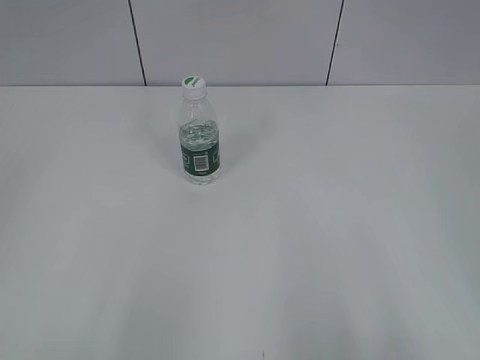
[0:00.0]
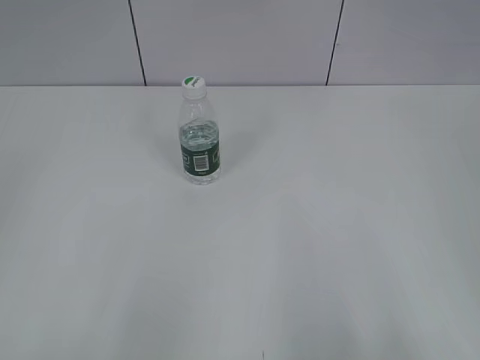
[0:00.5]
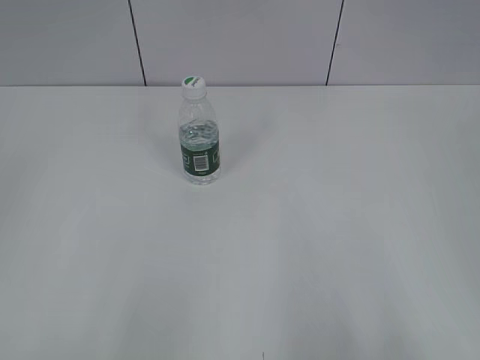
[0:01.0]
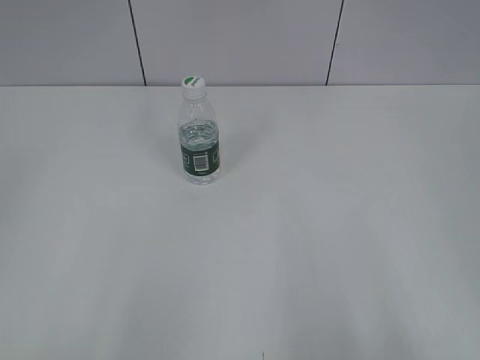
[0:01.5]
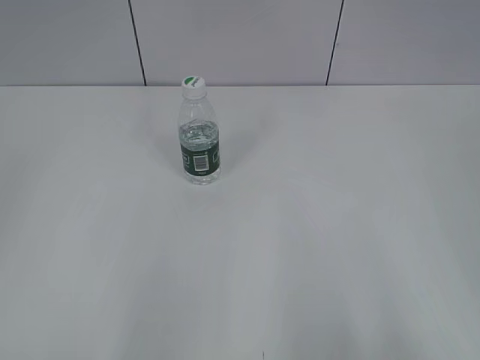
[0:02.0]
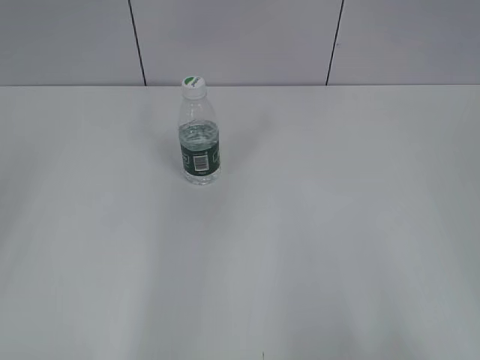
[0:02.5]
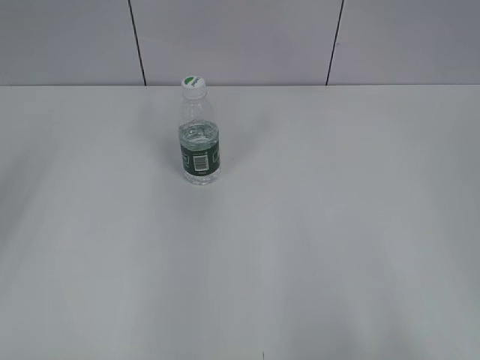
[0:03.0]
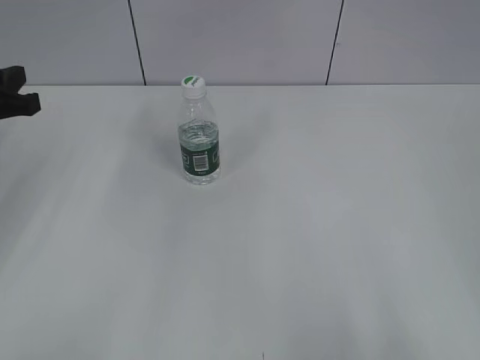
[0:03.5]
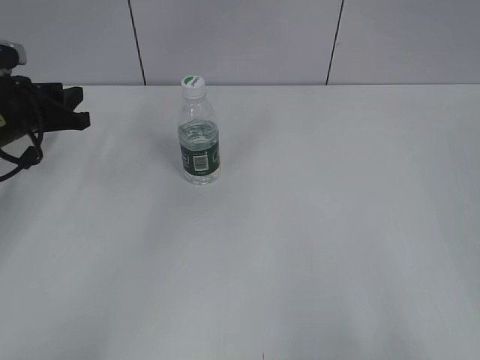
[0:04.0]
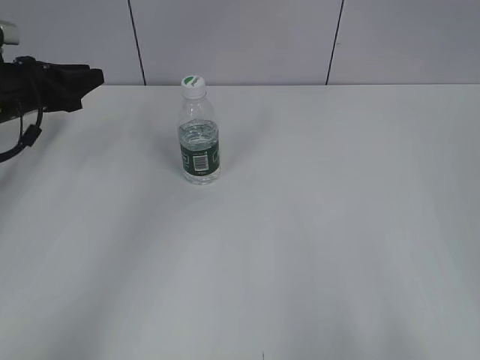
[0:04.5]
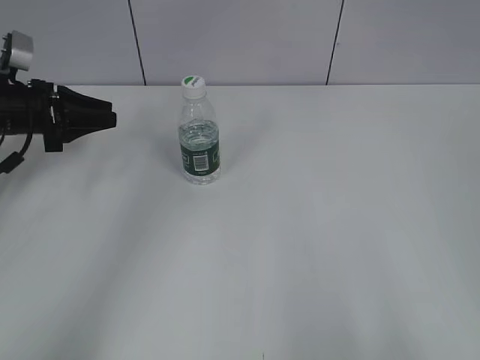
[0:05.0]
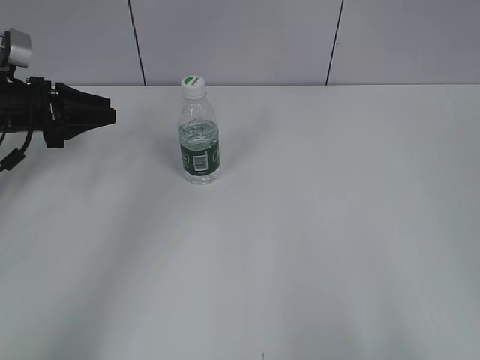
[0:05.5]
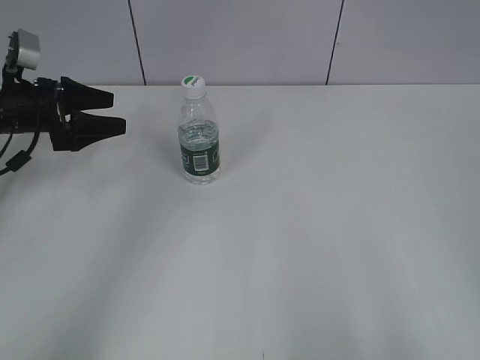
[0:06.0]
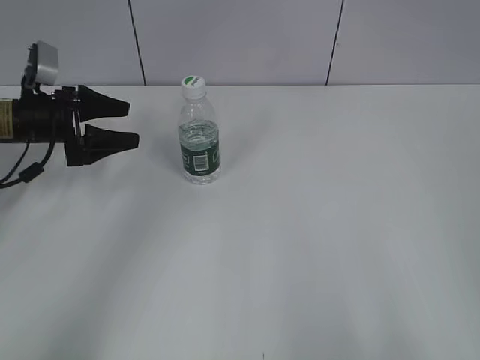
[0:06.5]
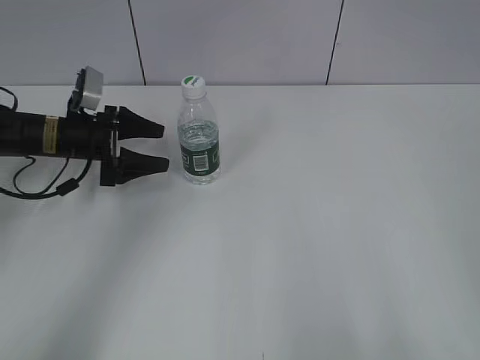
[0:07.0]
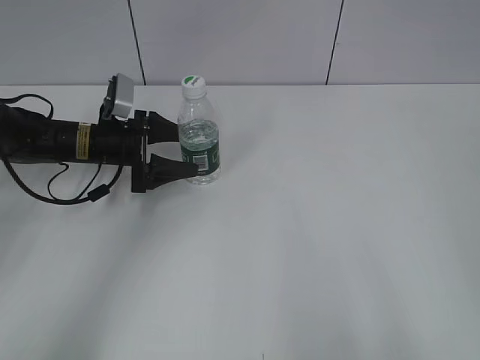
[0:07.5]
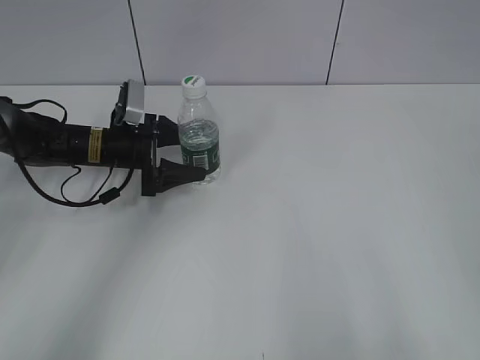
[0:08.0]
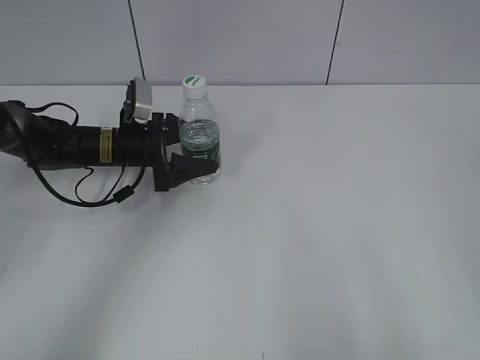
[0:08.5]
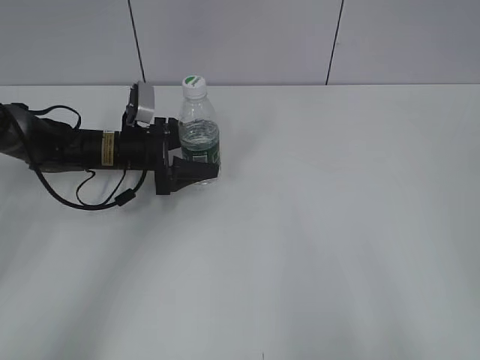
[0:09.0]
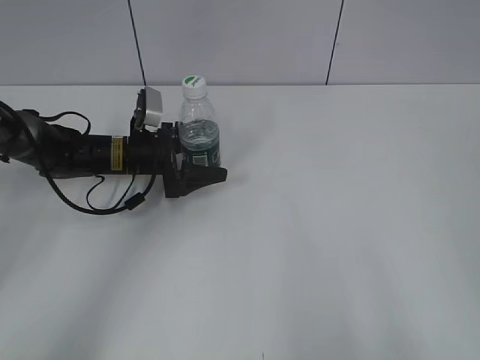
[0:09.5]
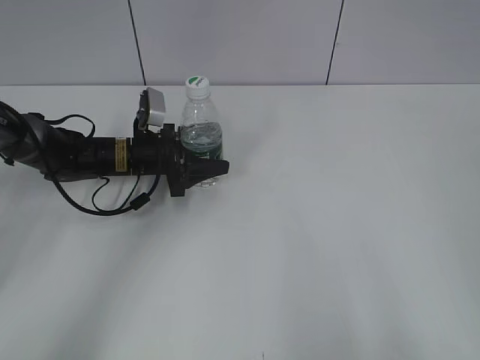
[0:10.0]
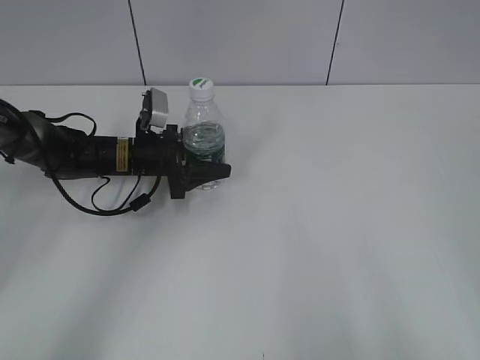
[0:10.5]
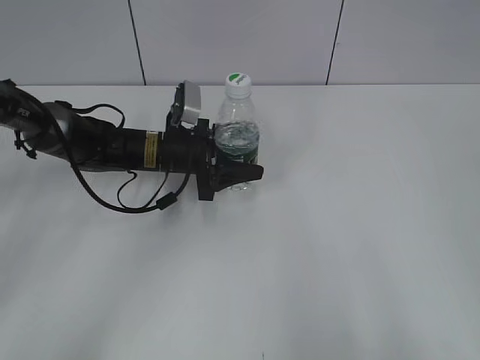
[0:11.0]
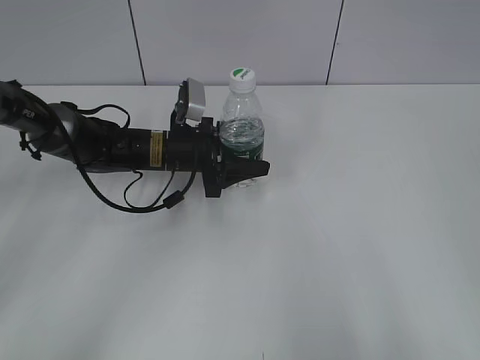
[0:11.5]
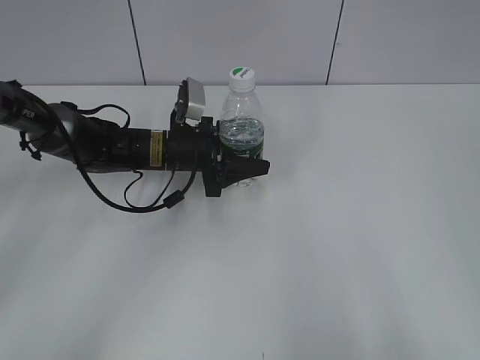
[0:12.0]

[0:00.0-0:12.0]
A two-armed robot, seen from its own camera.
Step, 0:00.0 to 0:10.0: Grasp the bottle and move it to the center of the table with the left gripper.
0:02.0 to 0:04.0: The left gripper is displaced forward and downward by about 40 cm.
0:04.0 to 0:06.0: The left gripper opens its fingers.
0:06.0 to 0:08.0: The left gripper shifts approximately 15 cm to the right and downward.
0:08.0 to 0:10.0: The left gripper closes up.
0:10.0 to 0:12.0: The left gripper heads to the right, covering approximately 5 cm.

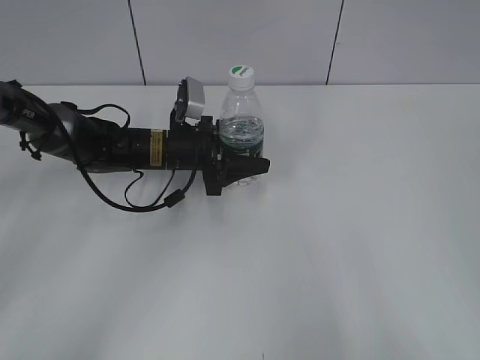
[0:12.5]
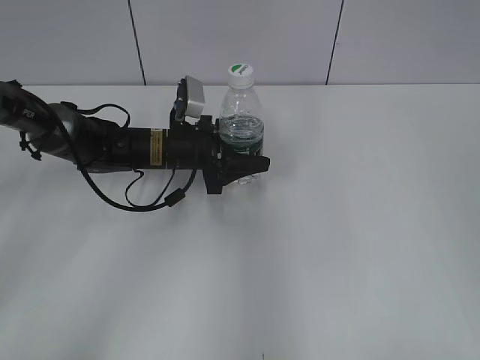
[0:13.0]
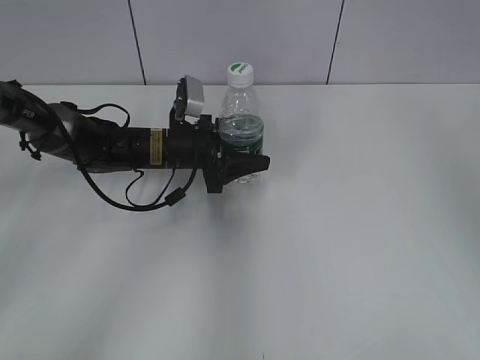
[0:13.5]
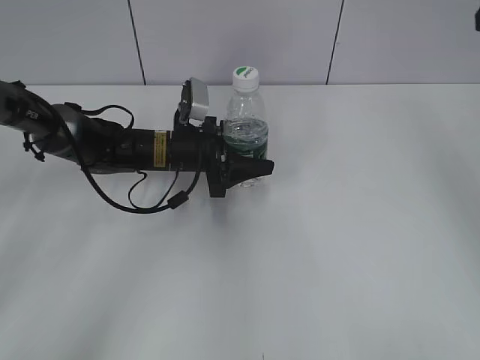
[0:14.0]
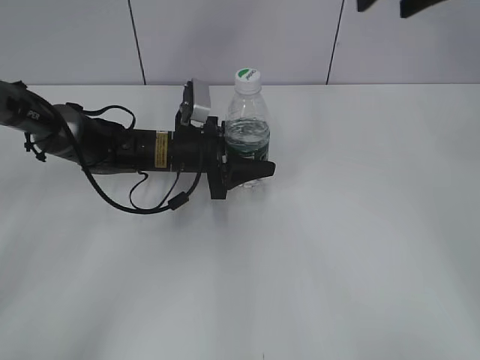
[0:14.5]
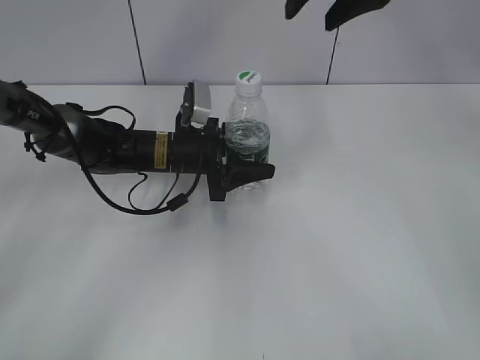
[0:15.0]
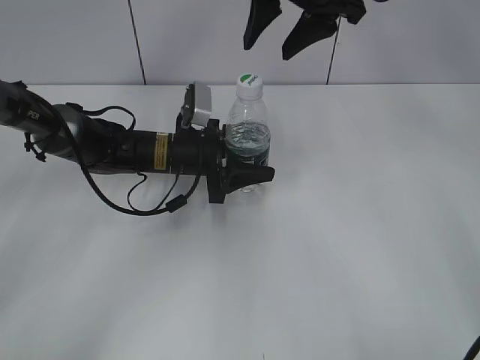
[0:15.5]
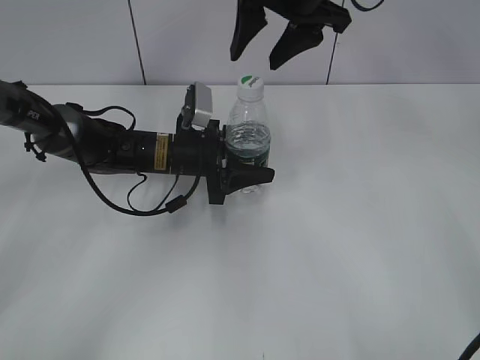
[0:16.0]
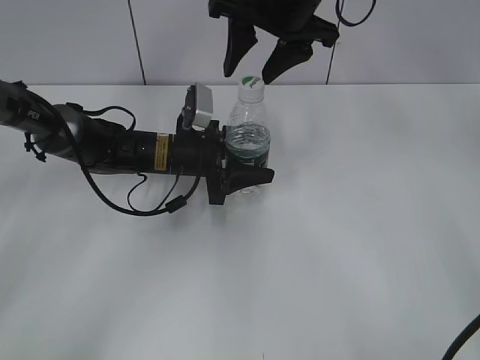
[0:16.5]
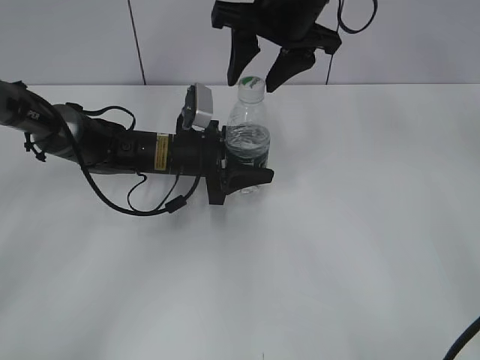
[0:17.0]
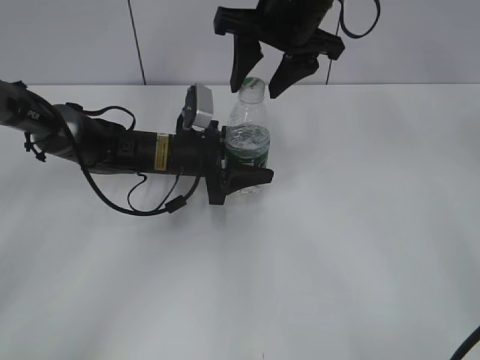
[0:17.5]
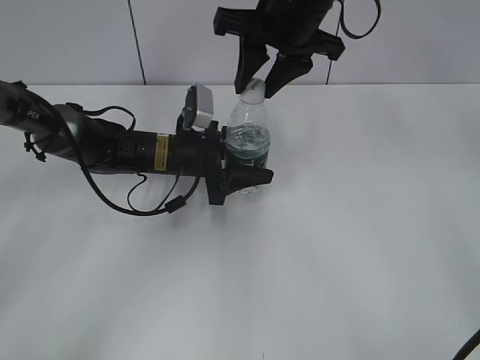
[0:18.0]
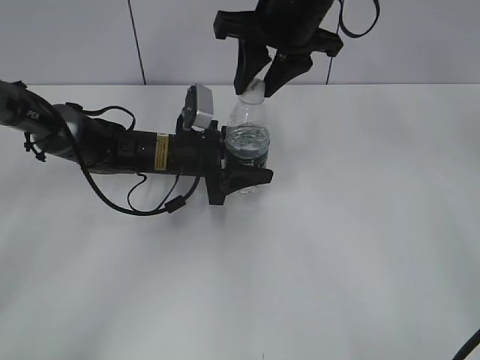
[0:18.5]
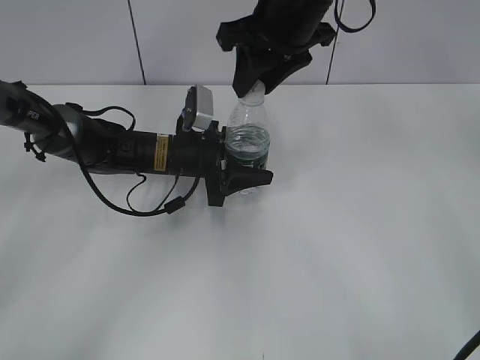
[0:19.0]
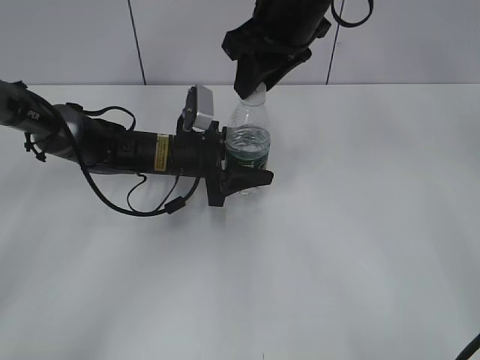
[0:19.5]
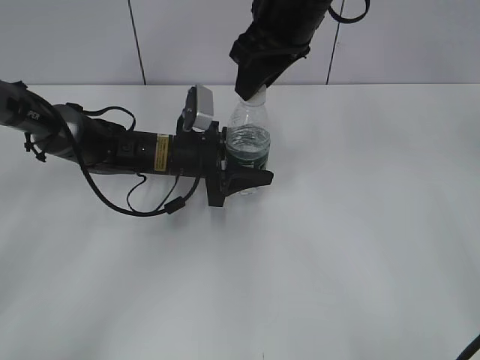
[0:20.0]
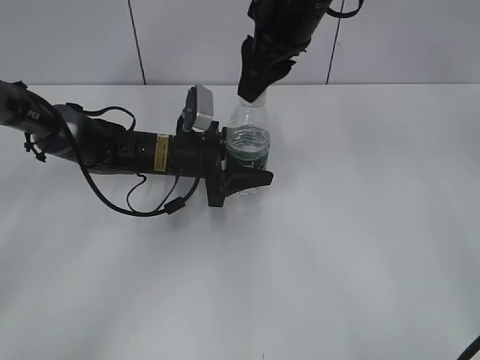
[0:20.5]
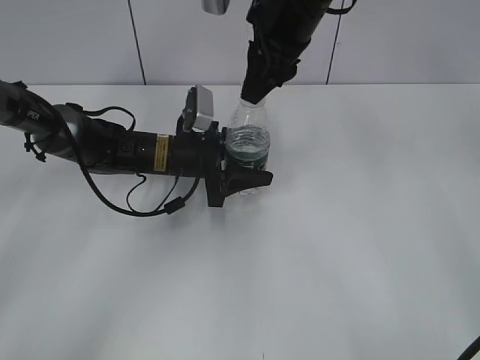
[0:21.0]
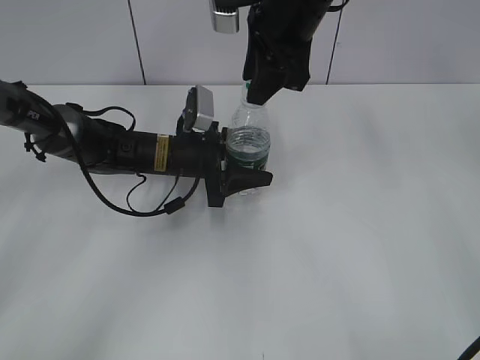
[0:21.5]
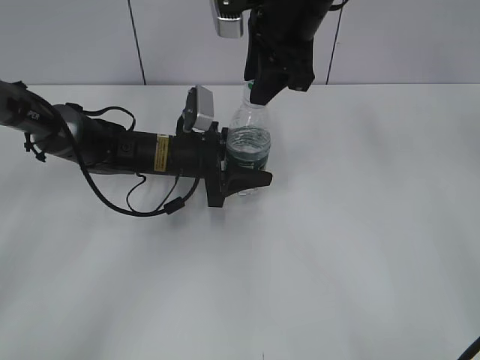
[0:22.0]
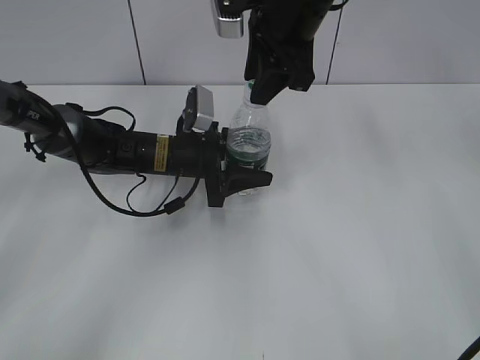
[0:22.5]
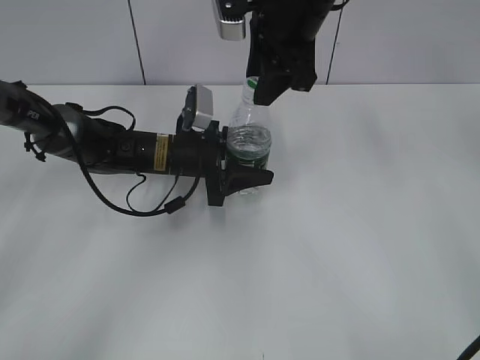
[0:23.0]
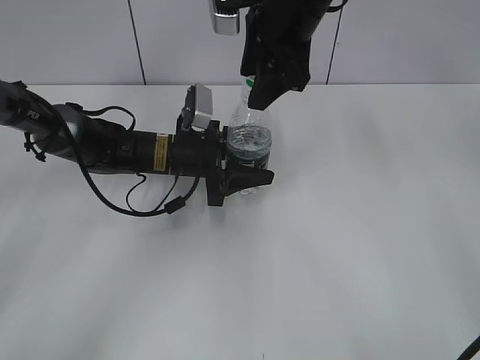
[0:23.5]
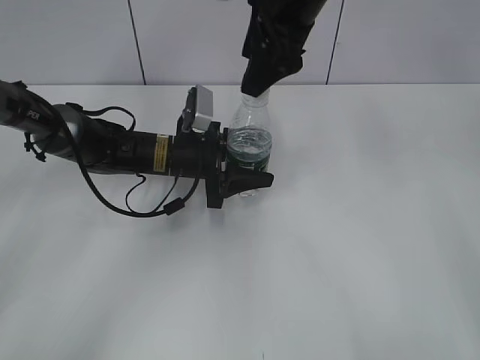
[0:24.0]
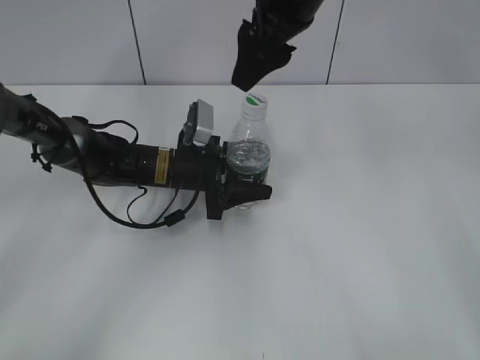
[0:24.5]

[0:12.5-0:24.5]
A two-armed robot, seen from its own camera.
0:12.5 to 0:14.5: The right gripper shifts approximately 35 cm forward.
0:14.5 to 0:16.5: The right gripper travels to the left and downward by approximately 15 cm.
0:16.5 to 0:18.5: The right gripper closes its fingers.
0:22.5 to 0:24.5: The right gripper opens its fingers.

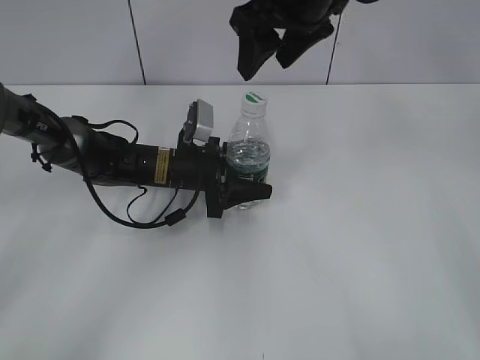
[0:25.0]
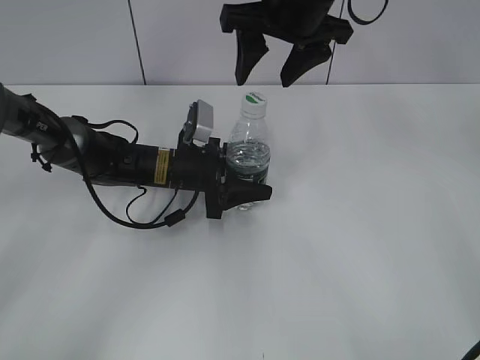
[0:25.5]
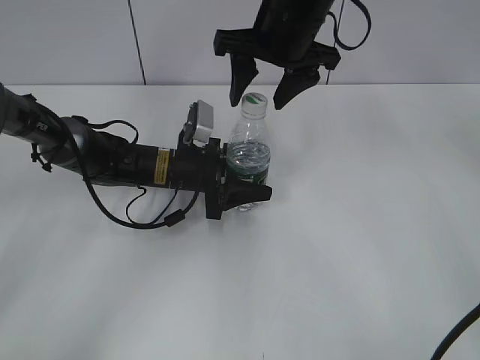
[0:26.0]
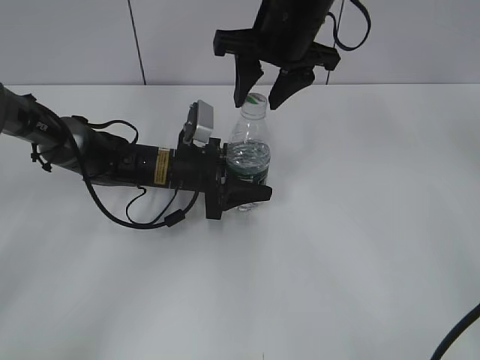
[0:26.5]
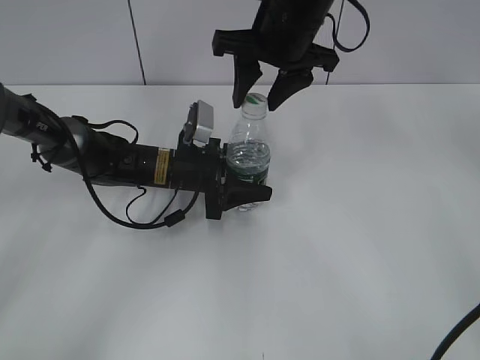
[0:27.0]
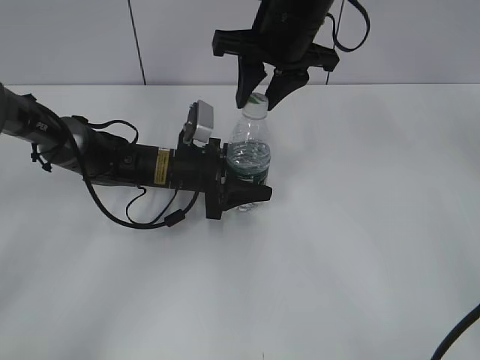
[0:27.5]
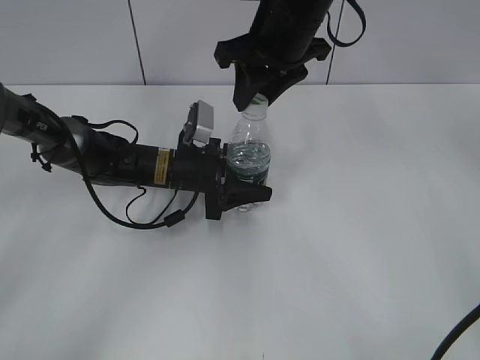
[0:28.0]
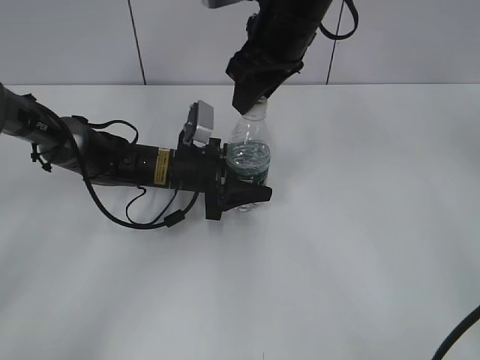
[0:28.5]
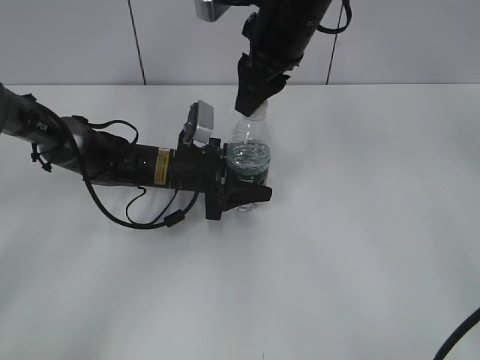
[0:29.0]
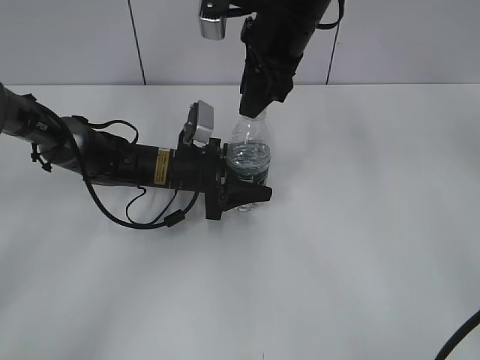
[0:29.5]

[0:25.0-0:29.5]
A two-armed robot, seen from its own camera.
0:25.0 to 0:27.0: The right gripper closes.
0:27.0 to 0:29.5: The right gripper closes its fingers.
